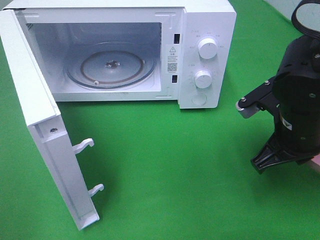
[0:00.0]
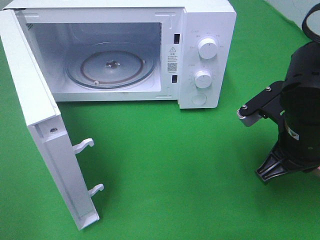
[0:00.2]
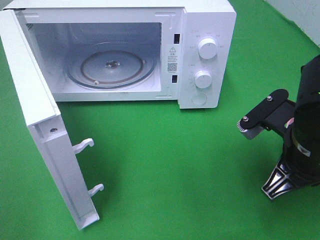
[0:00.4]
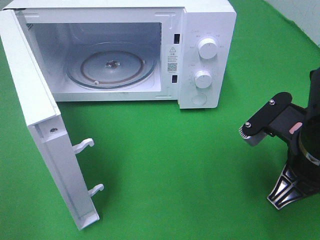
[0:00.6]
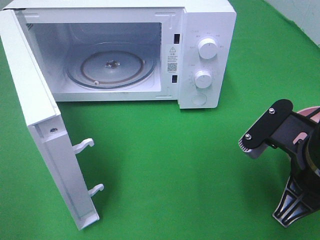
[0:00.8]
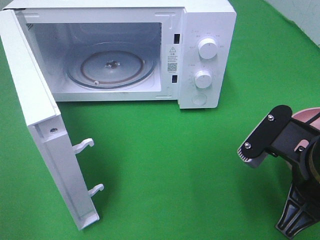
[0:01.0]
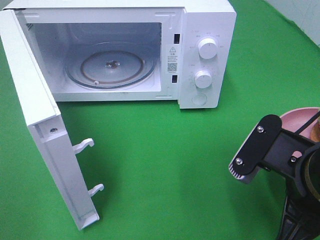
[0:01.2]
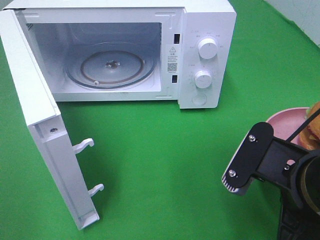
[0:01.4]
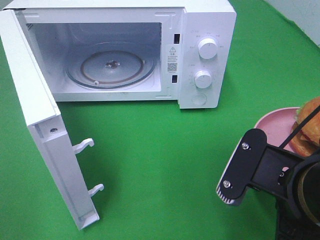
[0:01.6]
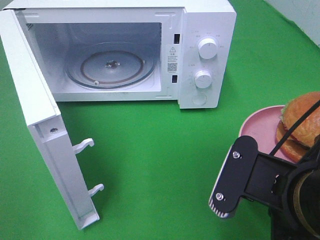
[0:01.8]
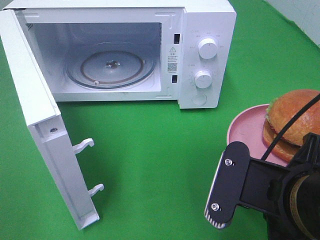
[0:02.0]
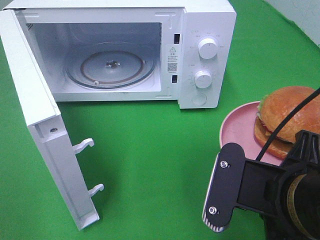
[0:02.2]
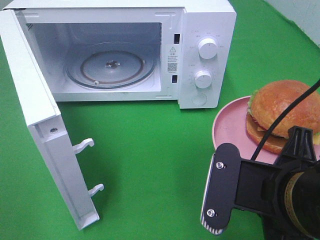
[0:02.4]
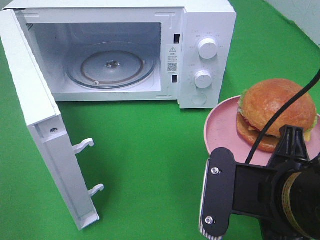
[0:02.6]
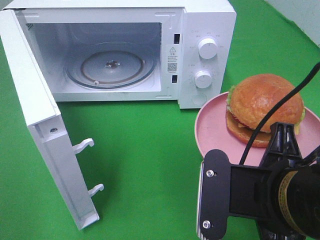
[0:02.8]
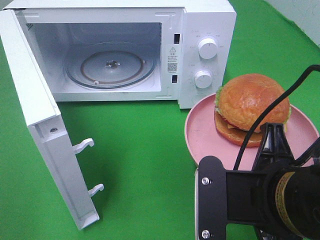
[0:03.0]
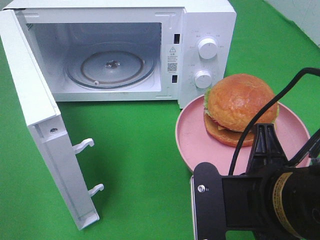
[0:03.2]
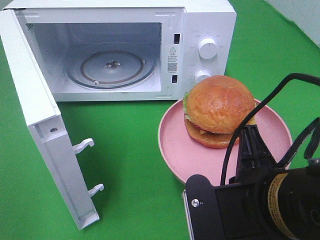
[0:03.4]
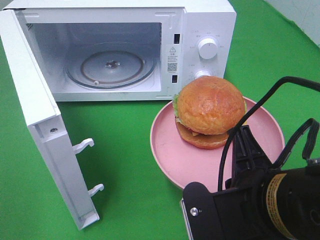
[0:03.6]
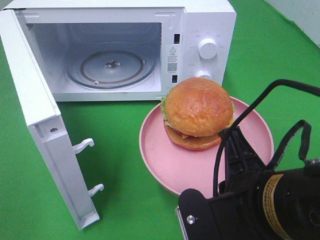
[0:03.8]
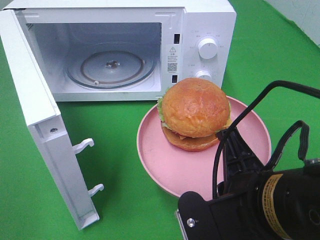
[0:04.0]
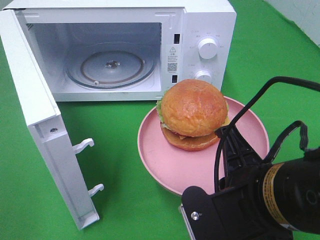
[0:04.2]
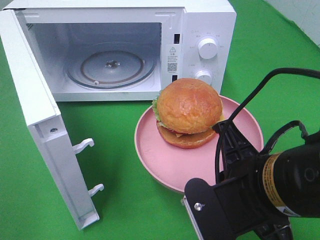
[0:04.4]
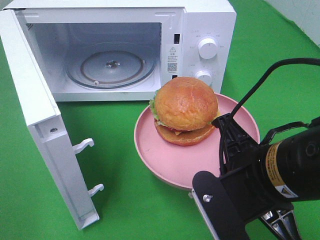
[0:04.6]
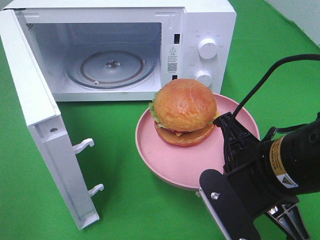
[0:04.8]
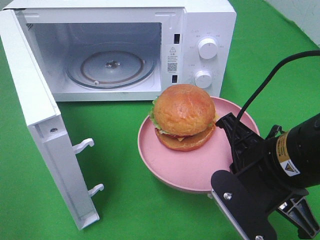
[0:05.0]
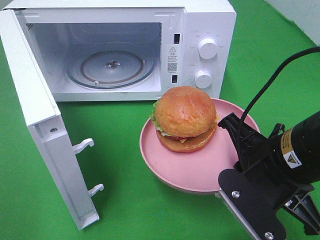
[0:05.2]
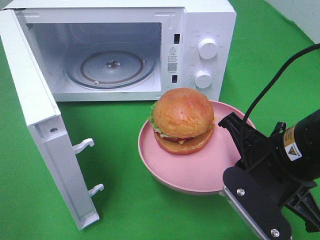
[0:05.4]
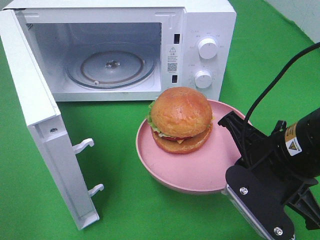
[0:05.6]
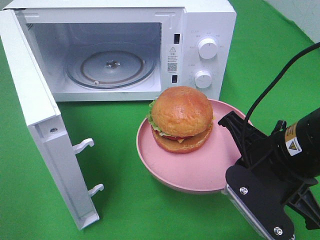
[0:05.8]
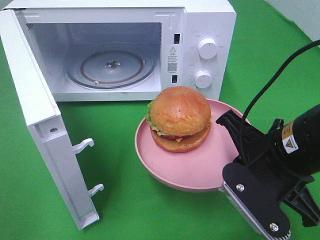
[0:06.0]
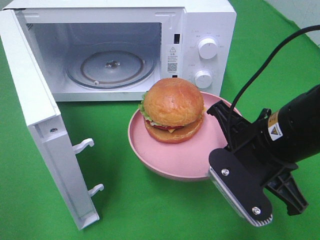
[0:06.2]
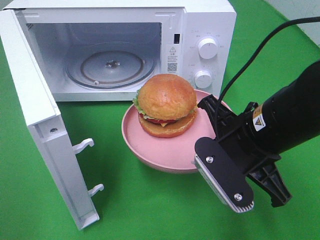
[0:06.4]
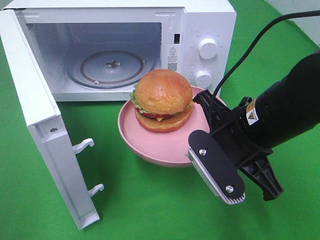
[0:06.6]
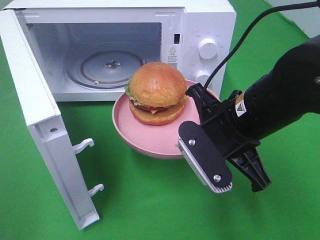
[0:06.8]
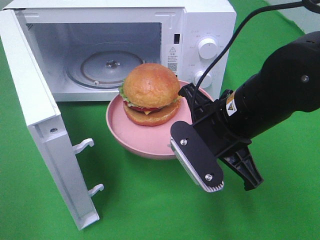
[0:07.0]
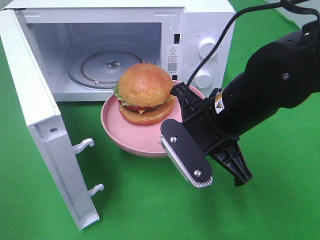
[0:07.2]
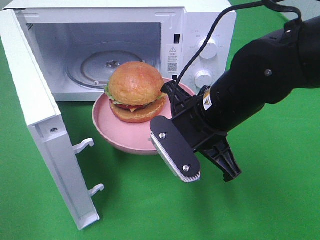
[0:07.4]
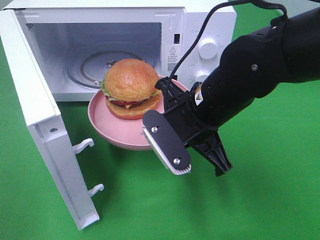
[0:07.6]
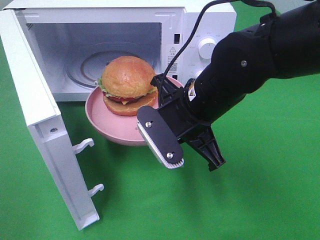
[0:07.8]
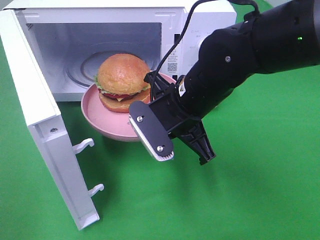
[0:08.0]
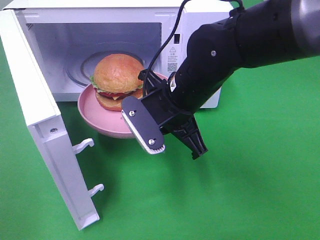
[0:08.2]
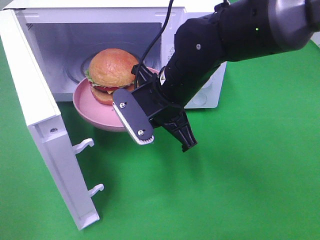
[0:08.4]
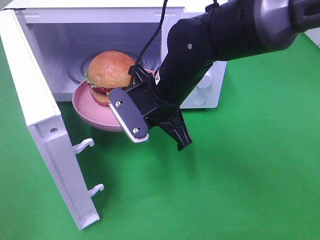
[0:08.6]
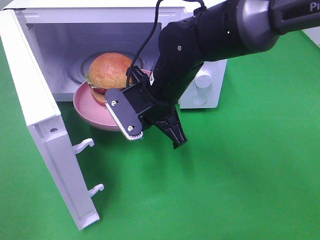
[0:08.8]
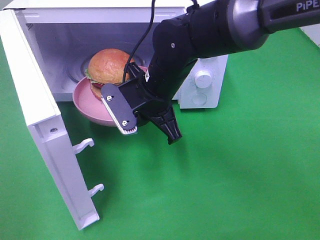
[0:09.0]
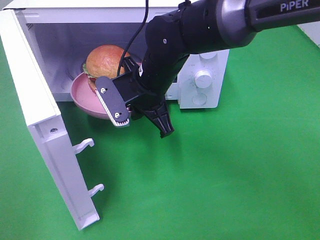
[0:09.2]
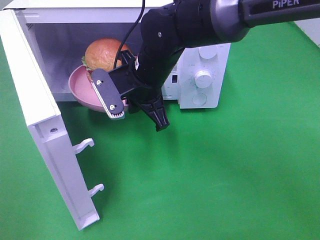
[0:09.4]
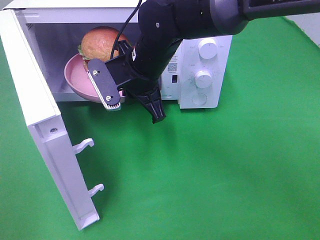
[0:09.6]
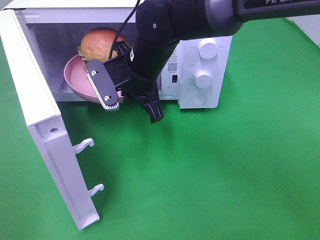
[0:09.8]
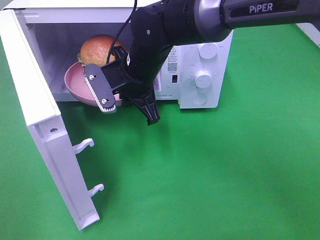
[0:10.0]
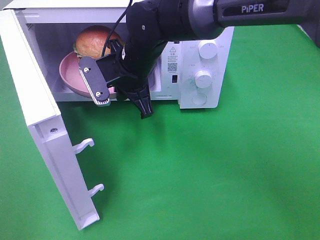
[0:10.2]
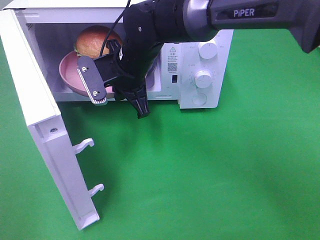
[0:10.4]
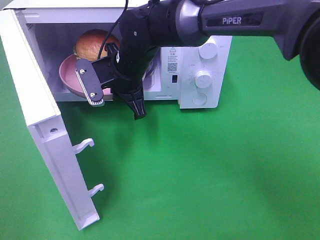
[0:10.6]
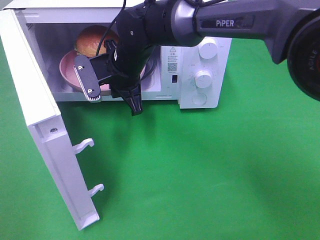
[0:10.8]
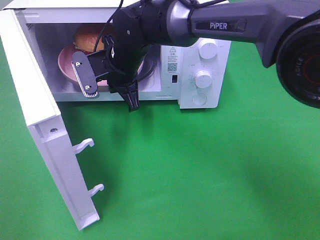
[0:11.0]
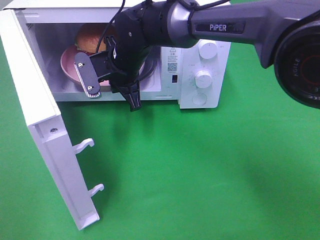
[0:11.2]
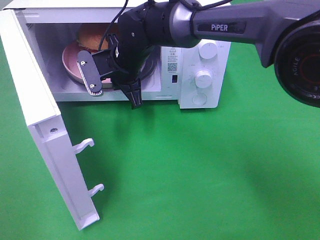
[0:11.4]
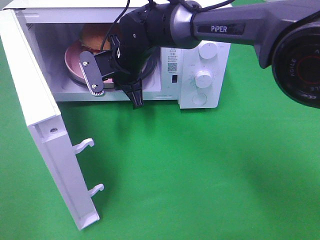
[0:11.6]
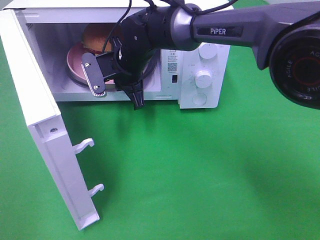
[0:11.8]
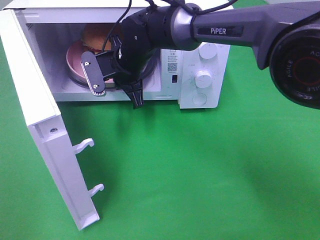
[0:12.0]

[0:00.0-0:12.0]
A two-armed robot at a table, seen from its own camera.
Task of the whole recording: Heat the burger.
0:00.0 to 0:01.6: The right gripper goes roughly 15 cm backward.
0:04.4 to 0:06.0: The right gripper heads forward, covering roughly 5 cm.
0:06.0 to 0:07.6: The right gripper goes roughly 10 cm to the left and forward.
0:07.6 to 0:09.0: The right gripper goes about 10 cm forward and to the left.
0:09.0 to 0:10.4: The right gripper is displaced forward by some 5 cm.
0:10.4 to 0:12.0: The grippers stay close to where they were, moving slightly.

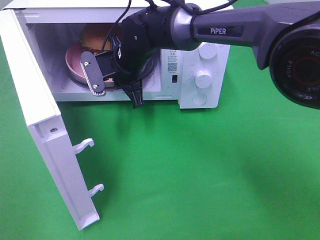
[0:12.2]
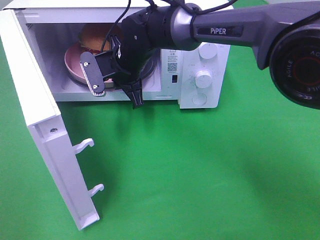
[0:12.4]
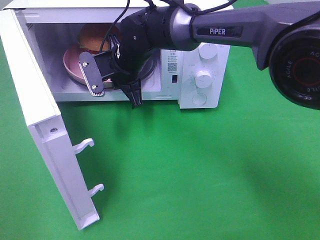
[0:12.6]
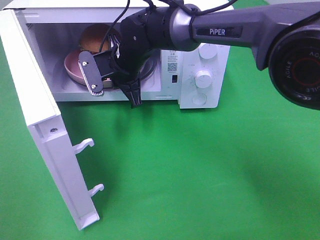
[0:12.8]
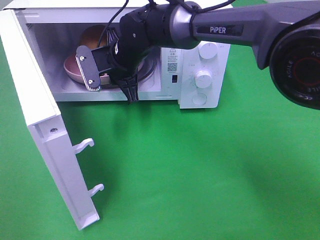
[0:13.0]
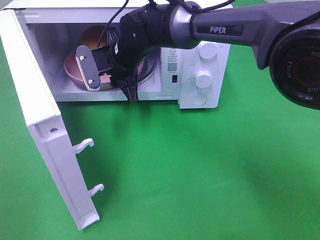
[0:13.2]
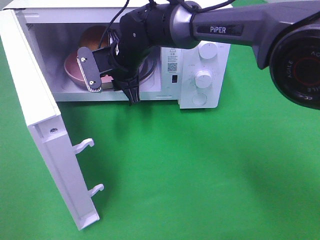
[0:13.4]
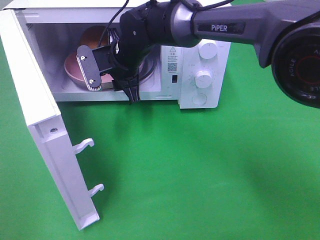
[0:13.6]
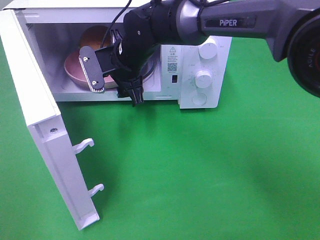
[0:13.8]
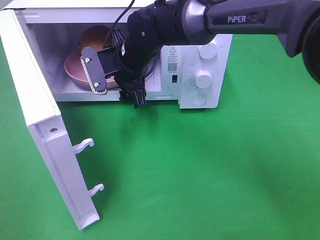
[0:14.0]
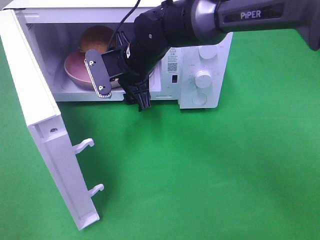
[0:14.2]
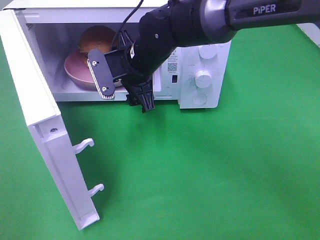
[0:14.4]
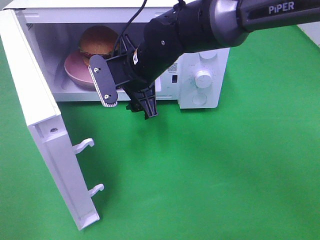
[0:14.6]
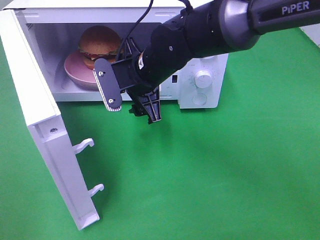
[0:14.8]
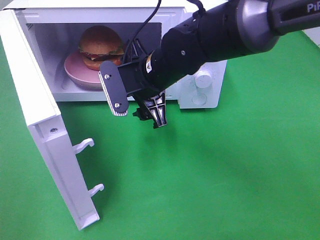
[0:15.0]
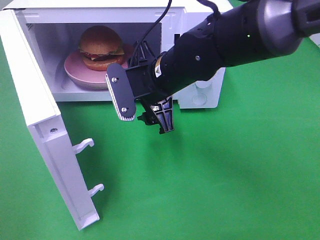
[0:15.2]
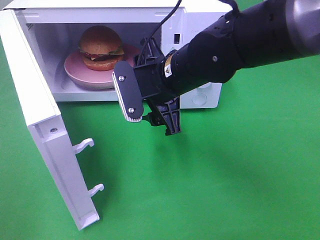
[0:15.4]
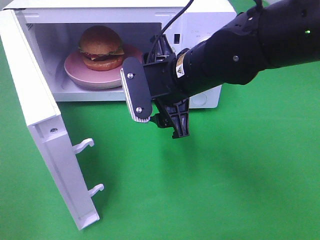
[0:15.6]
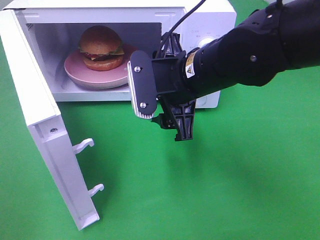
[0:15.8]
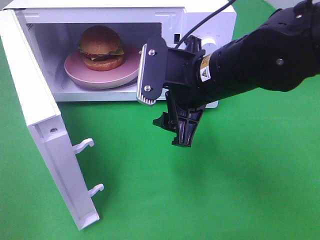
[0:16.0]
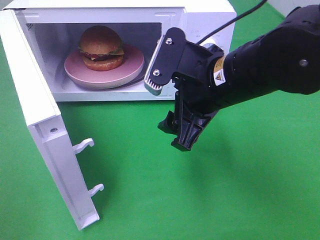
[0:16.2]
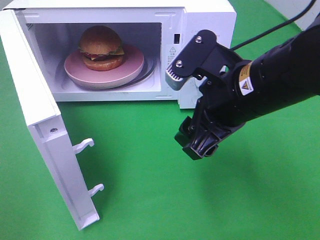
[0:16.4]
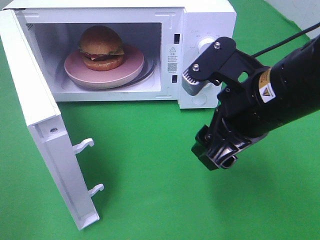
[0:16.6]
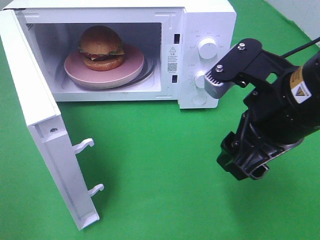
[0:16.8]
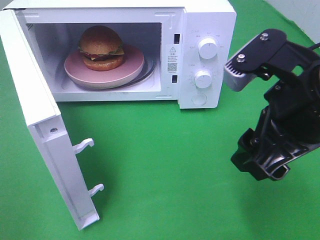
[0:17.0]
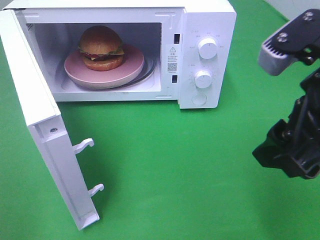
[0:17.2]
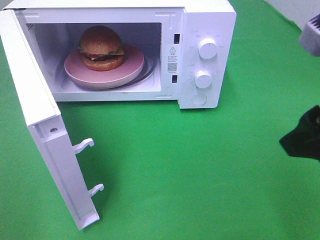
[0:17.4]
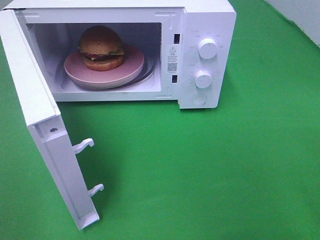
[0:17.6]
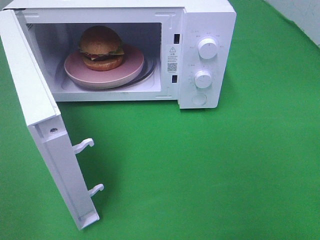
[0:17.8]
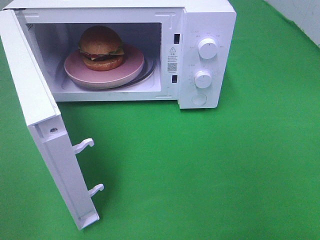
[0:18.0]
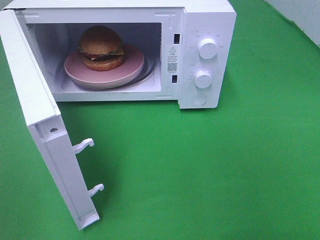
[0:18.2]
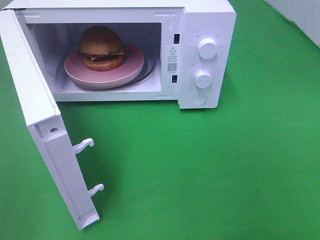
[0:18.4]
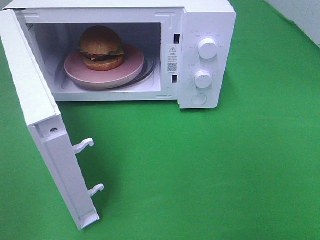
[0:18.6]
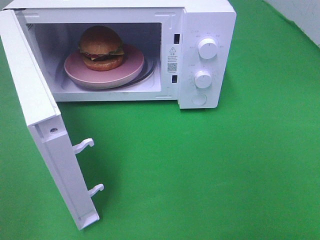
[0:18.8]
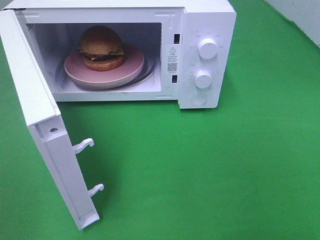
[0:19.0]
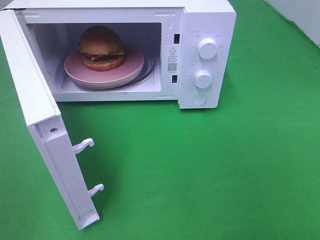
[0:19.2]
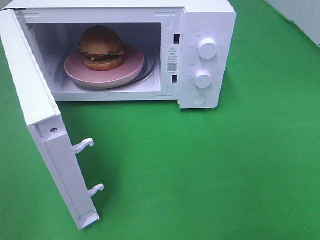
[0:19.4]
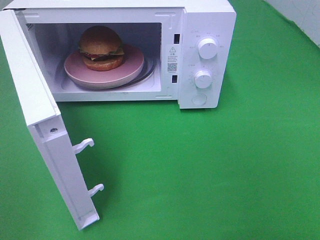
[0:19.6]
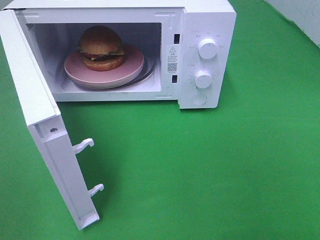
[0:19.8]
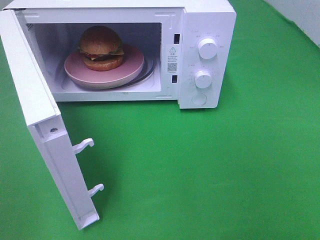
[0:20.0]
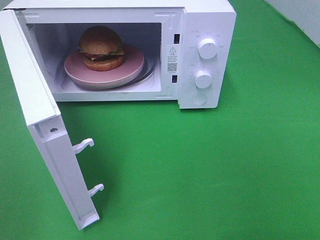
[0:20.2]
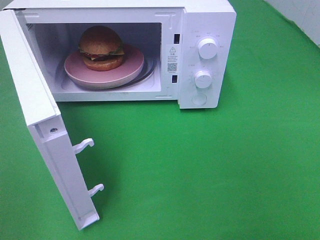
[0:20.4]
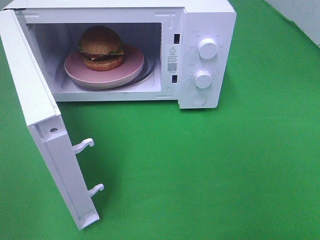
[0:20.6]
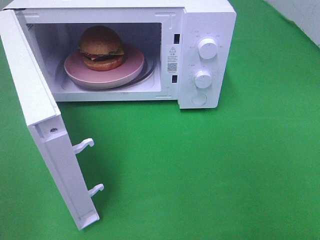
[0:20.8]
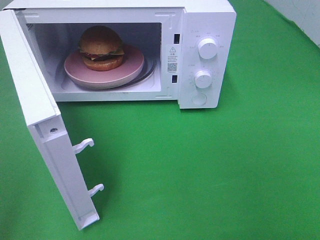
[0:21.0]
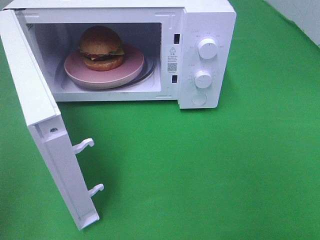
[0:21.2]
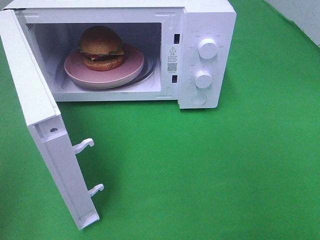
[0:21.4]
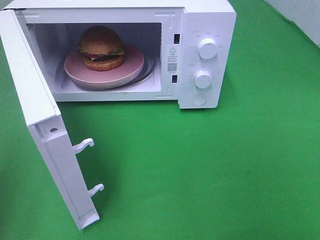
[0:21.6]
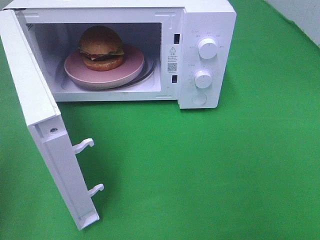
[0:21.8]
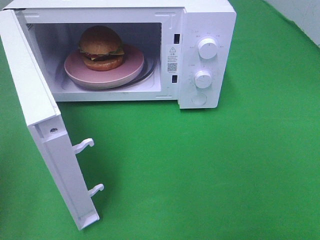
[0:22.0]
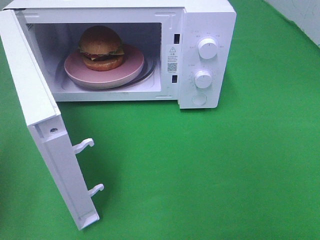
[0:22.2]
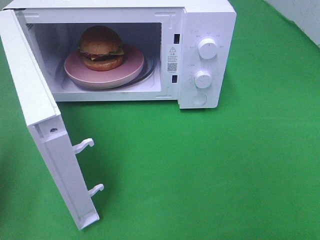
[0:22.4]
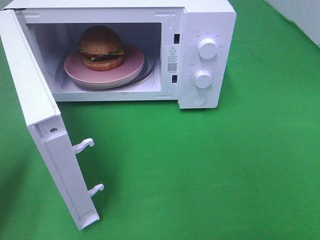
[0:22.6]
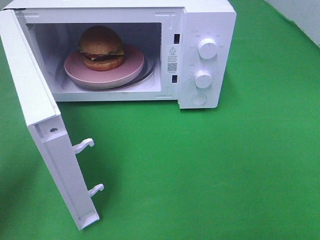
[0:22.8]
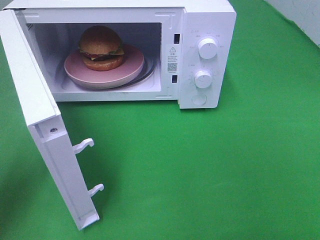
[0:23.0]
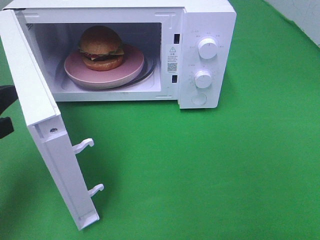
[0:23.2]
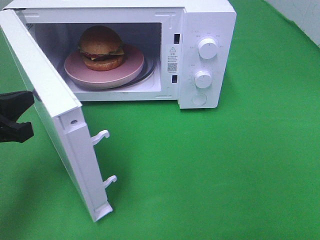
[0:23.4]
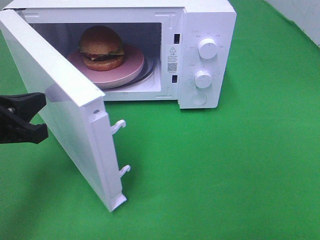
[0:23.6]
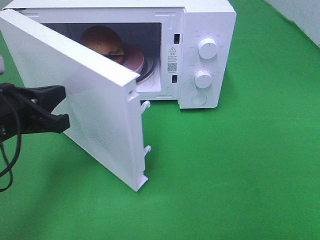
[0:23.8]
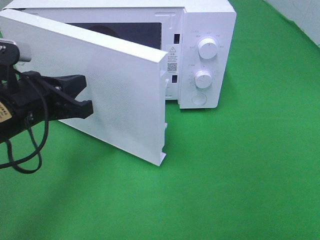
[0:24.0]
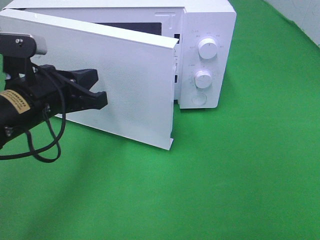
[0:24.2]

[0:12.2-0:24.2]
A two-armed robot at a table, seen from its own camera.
Task of the whole recording: Heat the burger.
Step, 0:12.2 to 0:14.4: Right hand: place the plate in the microwave.
0:12.2 to 0:13.8: The right gripper opens up.
0:13.8 to 0:15.2: The right gripper heads backward and to the right, covering roughly 10 cm.
0:15.2 to 0:16.6: The right gripper travels backward and to the right by approximately 15 cm.
0:16.6 to 0:18.2: The right gripper heads to the right and backward, covering roughly 25 cm.
0:21.2 to 0:22.6: The left gripper heads forward and downward, covering approximately 15 cm.
0:22.6 to 0:24.2: The left gripper shifts some 15 cm to the right and forward.
